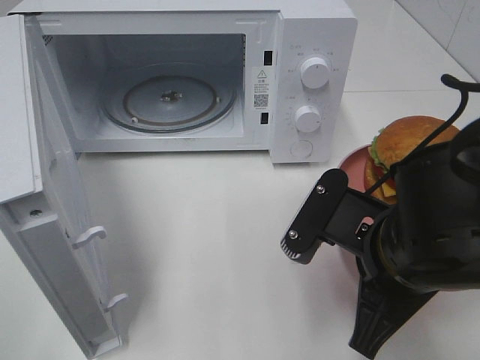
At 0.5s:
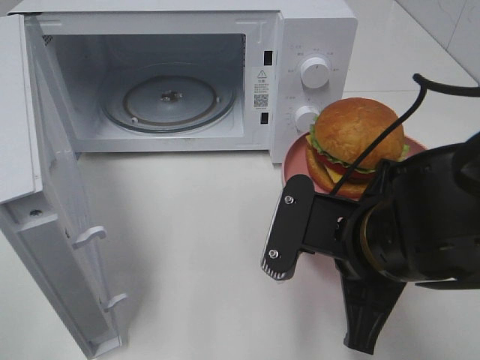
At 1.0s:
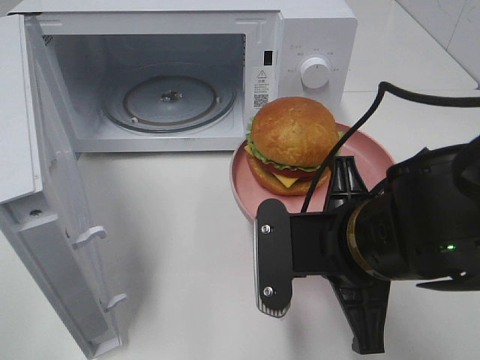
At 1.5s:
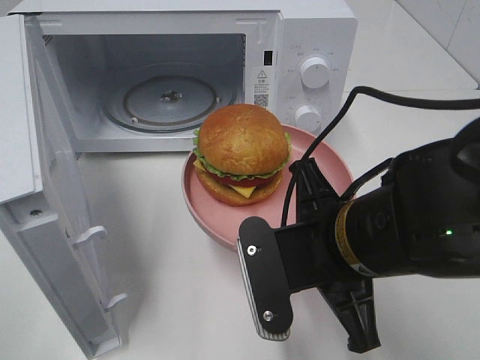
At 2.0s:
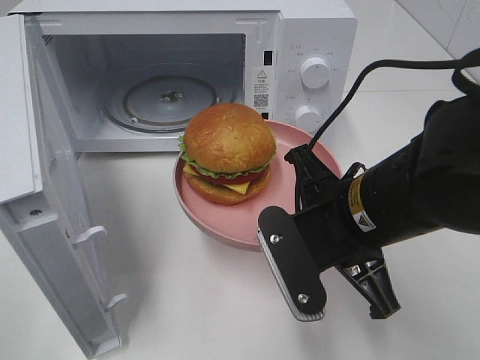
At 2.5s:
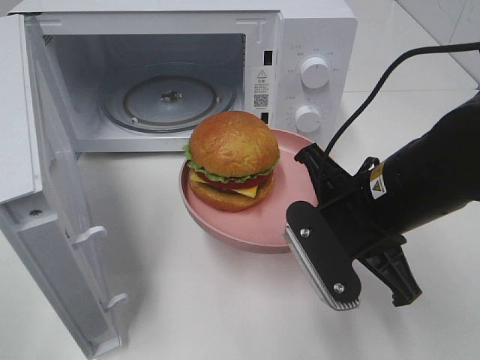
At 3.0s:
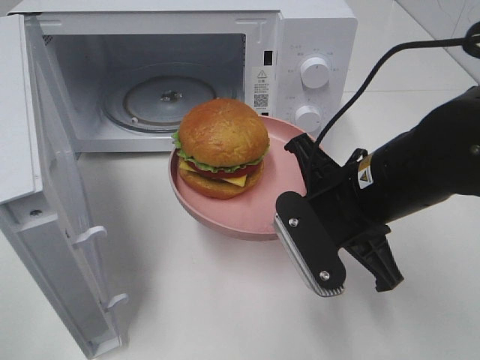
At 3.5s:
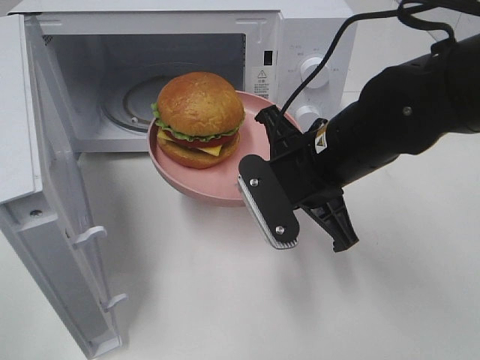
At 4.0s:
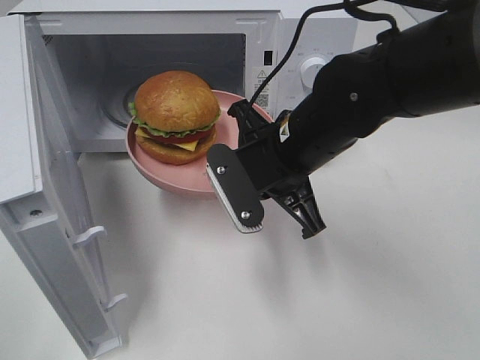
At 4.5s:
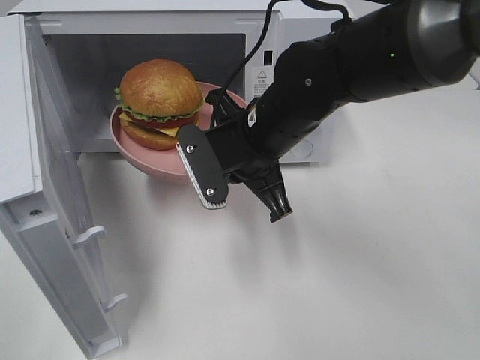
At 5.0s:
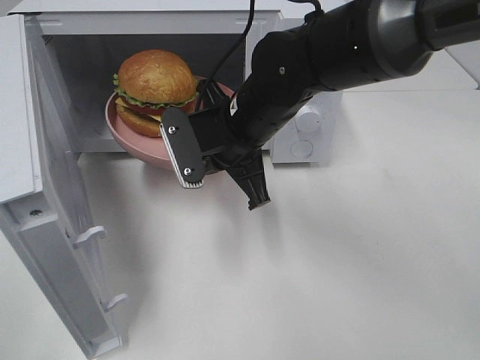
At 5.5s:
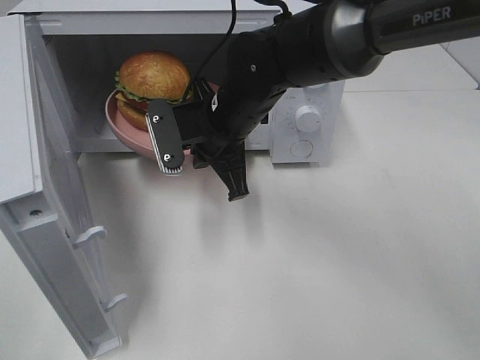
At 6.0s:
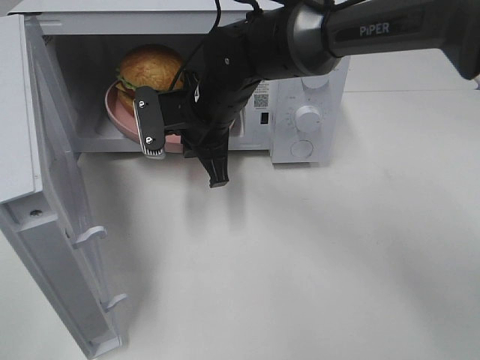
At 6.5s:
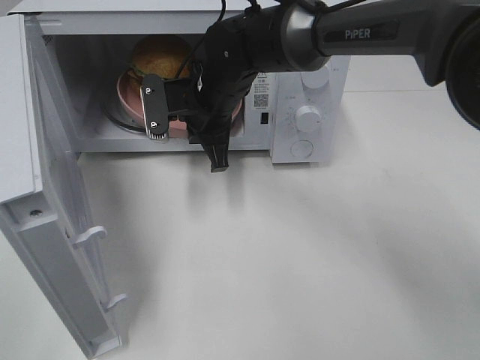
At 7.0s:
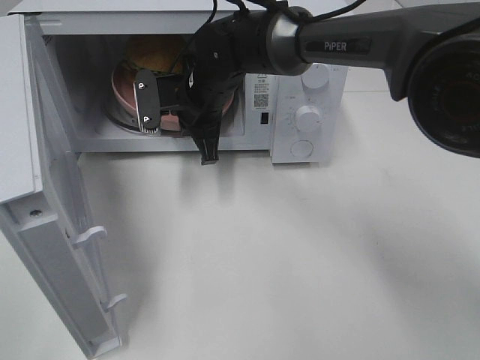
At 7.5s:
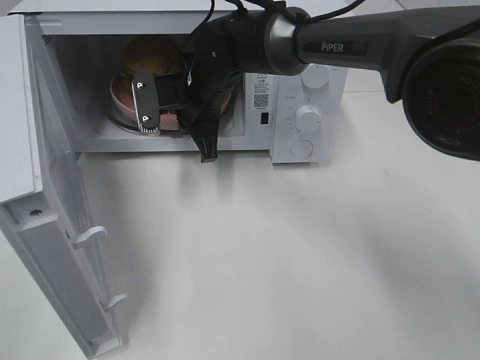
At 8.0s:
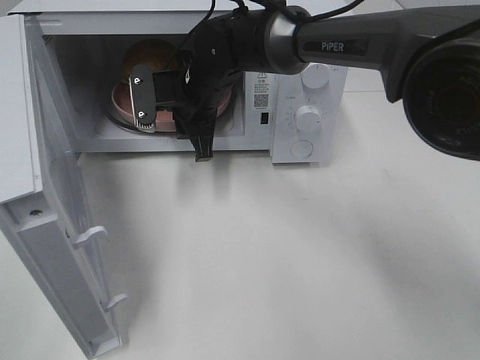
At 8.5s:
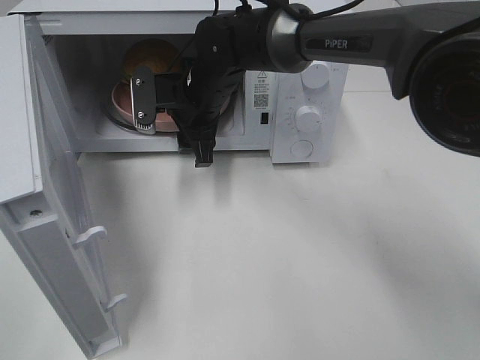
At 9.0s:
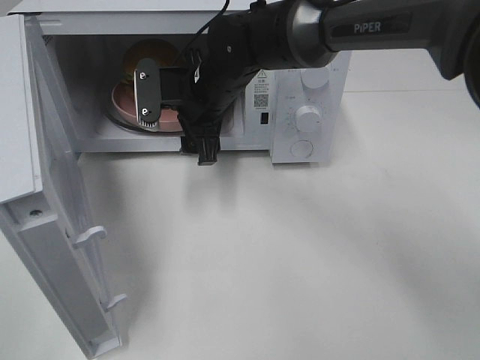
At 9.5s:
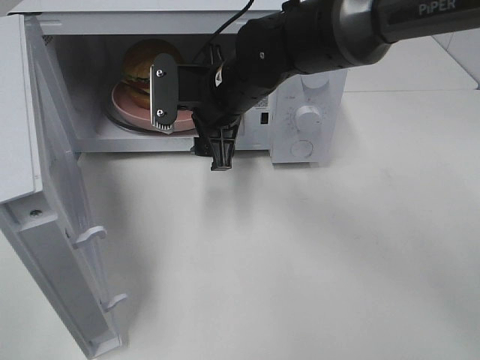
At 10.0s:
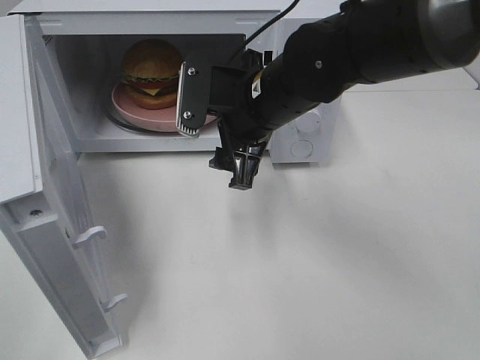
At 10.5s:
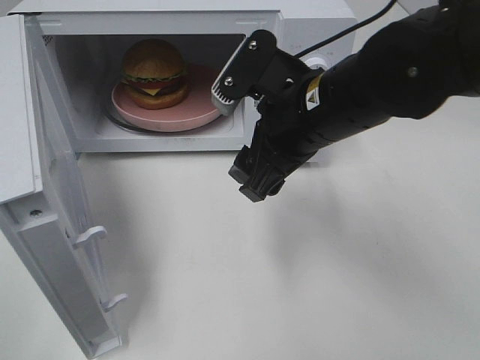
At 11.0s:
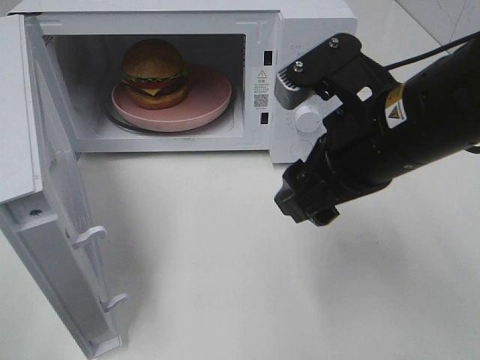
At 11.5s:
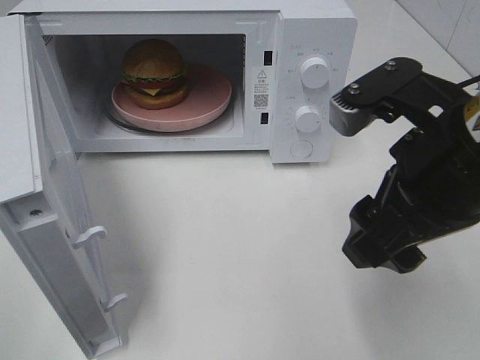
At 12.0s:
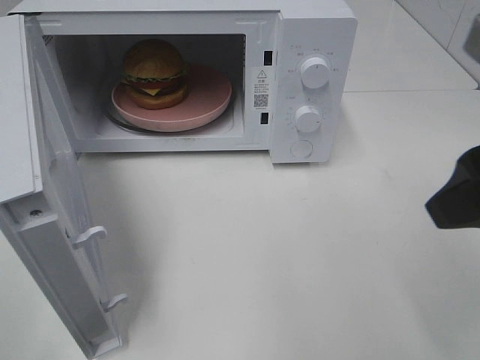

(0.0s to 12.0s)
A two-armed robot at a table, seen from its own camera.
Task of the whole recording: Heat the burger.
Step, 0.0s - 8.5s: Right hand: place the plate in the microwave.
2.0s - 4.0s: The right gripper travels forward by roughly 10 cm.
4.0s - 6.0s: The right gripper goes some 15 cm forward and to the left.
6.0s - 8.0s: The right gripper opens.
8.0s - 10.0s: The right gripper travels backward and to the right by roughly 15 cm, and opens its fingers.
10.0s - 12.0s: The right gripper travels to the right, backward and upward by approximately 25 cm.

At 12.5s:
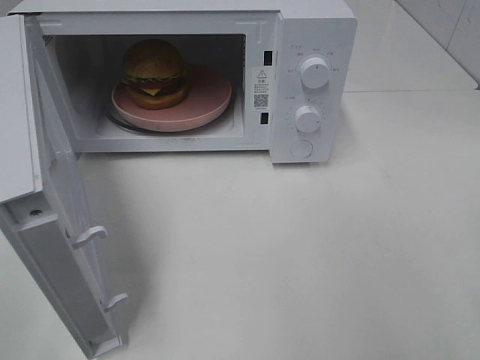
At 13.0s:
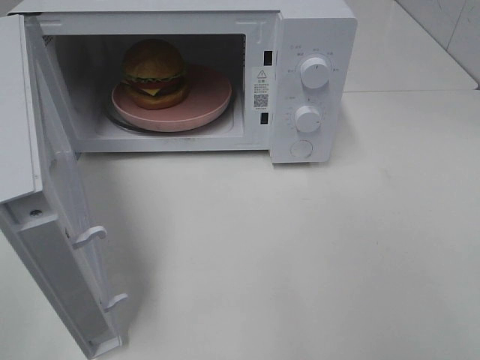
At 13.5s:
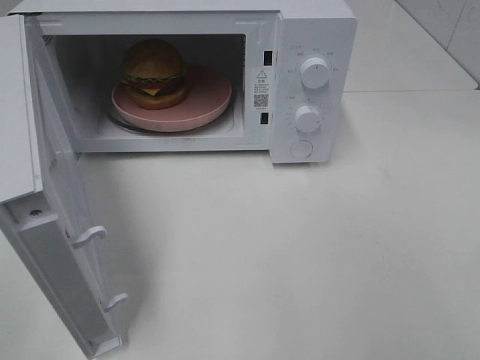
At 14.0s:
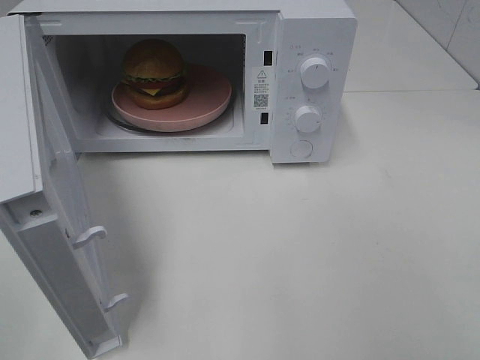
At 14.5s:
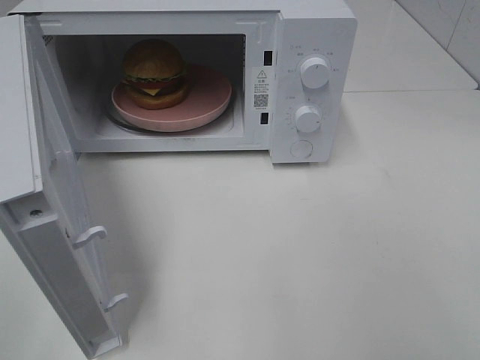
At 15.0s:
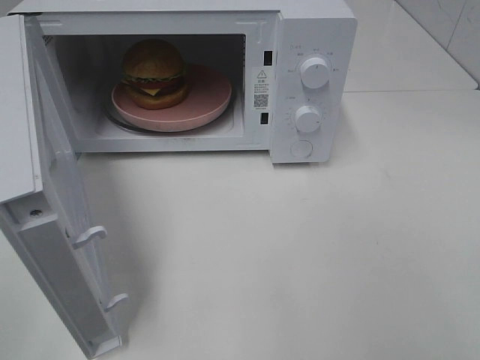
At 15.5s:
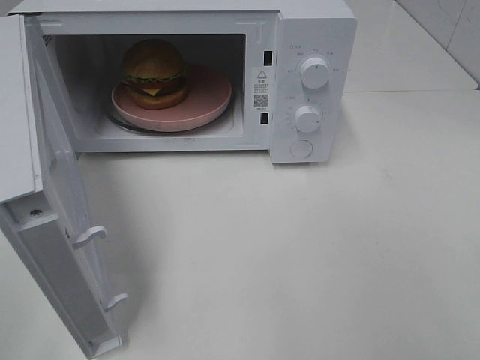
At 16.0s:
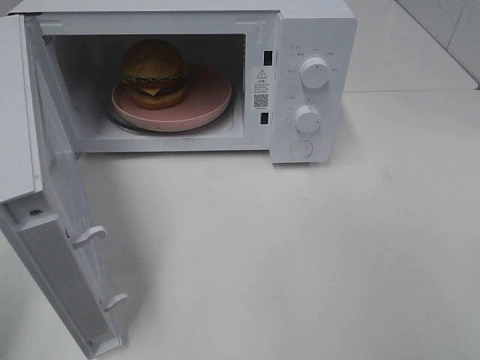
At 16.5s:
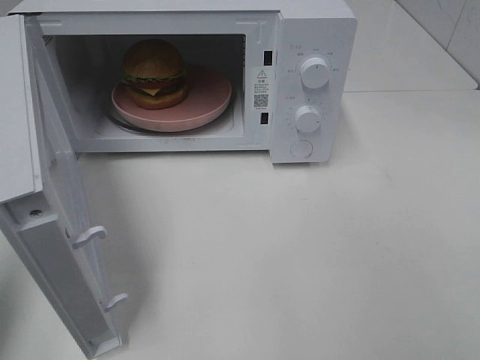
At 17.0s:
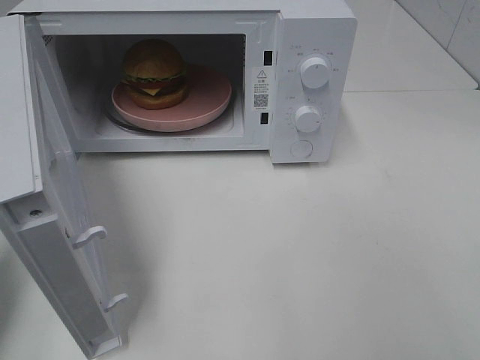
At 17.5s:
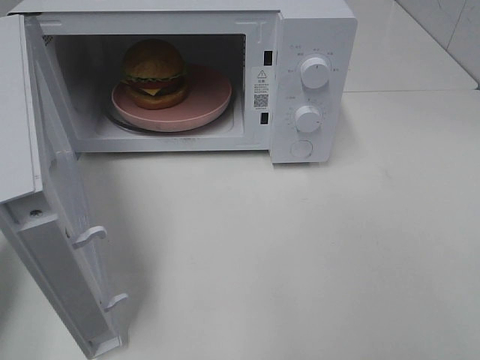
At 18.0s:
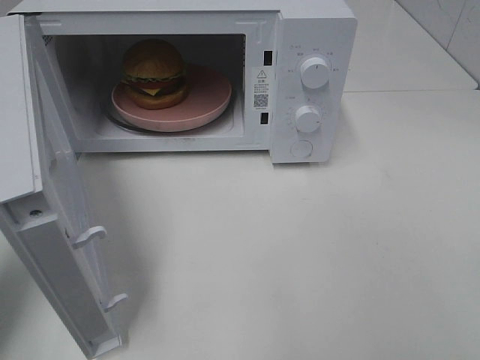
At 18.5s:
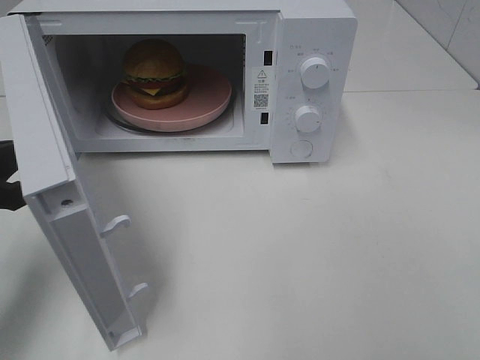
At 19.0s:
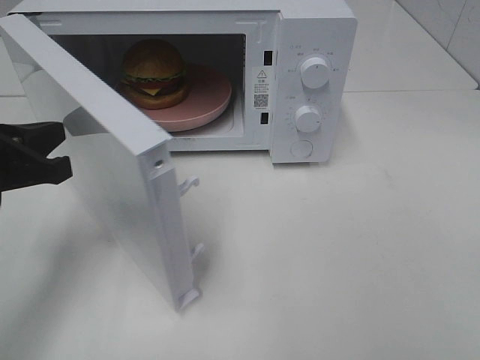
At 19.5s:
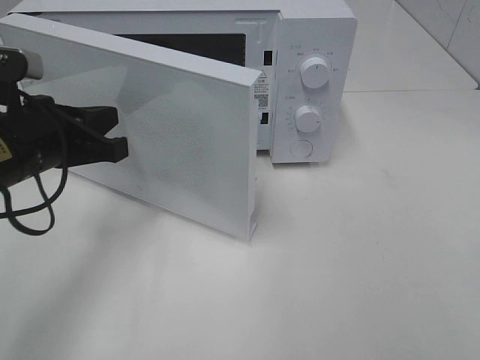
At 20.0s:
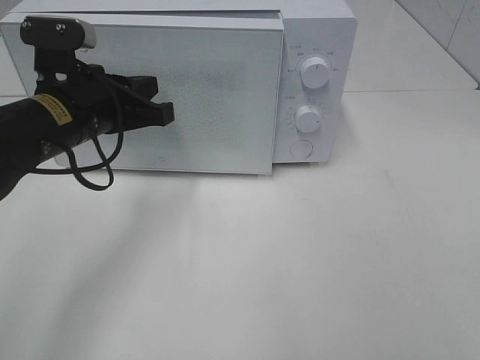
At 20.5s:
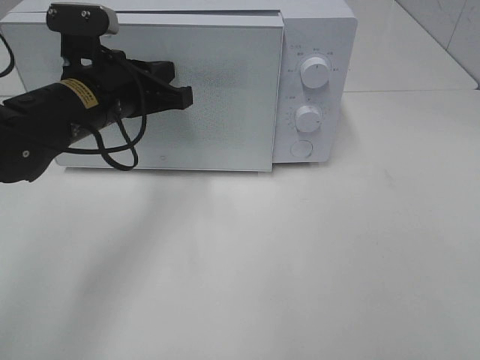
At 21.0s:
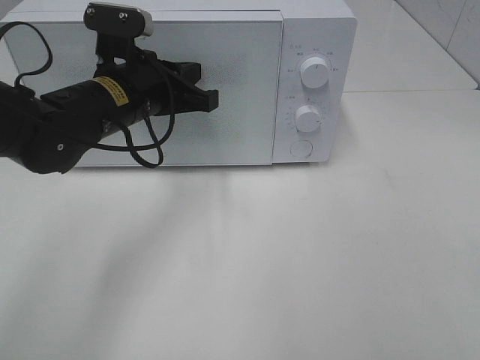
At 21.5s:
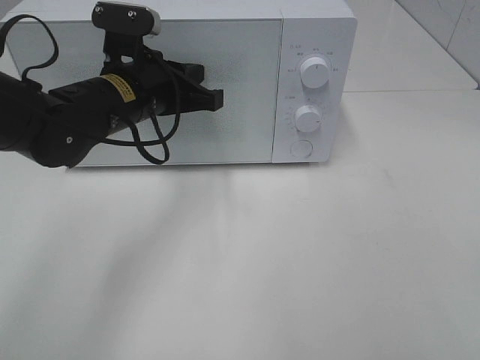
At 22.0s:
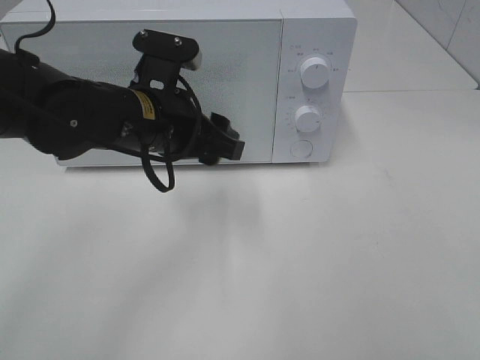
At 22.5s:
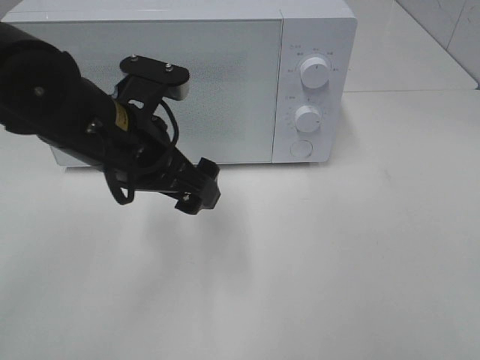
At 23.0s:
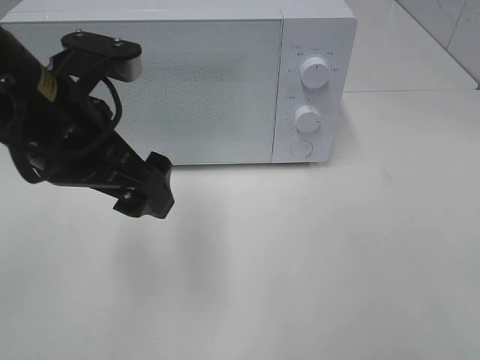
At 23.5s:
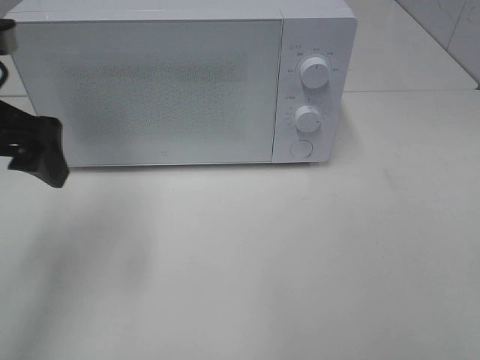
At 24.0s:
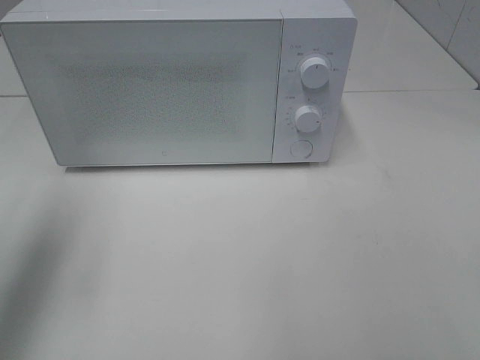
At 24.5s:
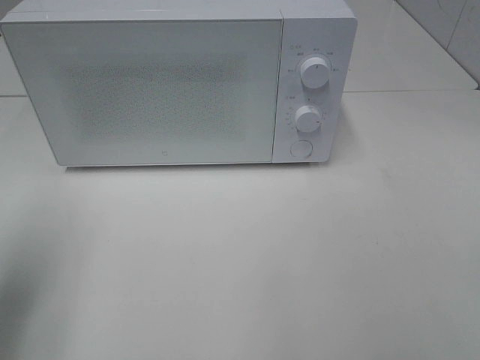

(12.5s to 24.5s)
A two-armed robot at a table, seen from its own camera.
Task of the whole recording: Heat the burger.
Step, 12.5s - 21.5s: Left hand: close the microwave door.
14.5s - 16.5s: The left gripper goes about 15 cm forward, and closes up.
16.5s - 18.5s: The left gripper is displaced downward, forward and to the right by roughly 15 cm.
18.5s - 20.5s: The left gripper travels to the right and forward by some 20 cm.
20.5s - 22.5s: The left gripper moves backward, some 5 cm, and opens up.
22.5s - 24.5s: The left gripper shifts some 20 cm to the left and backward.

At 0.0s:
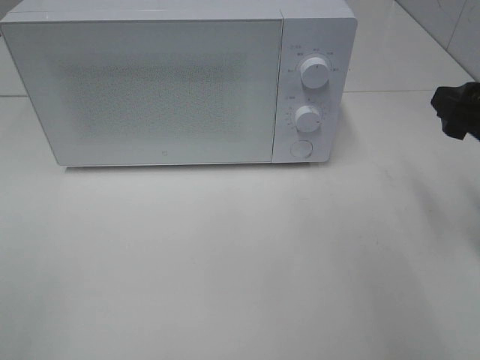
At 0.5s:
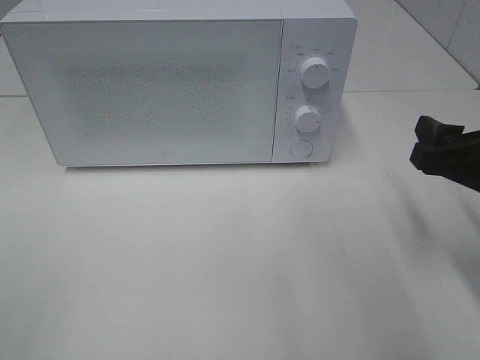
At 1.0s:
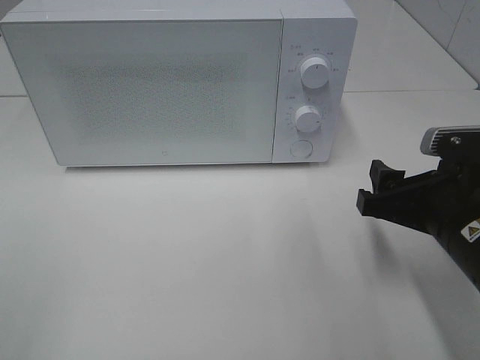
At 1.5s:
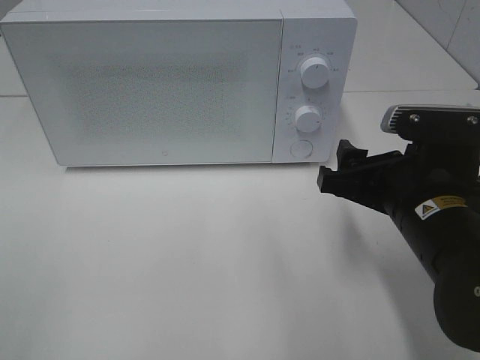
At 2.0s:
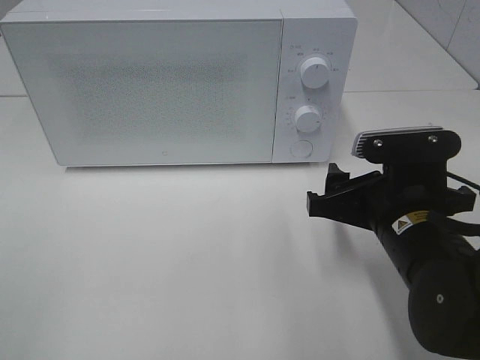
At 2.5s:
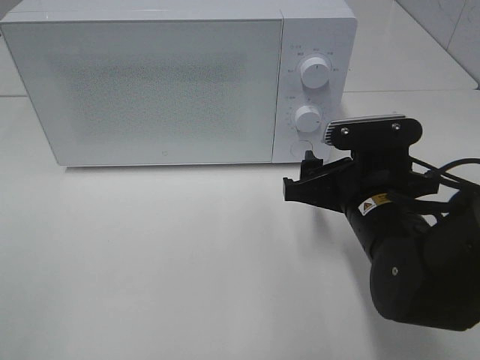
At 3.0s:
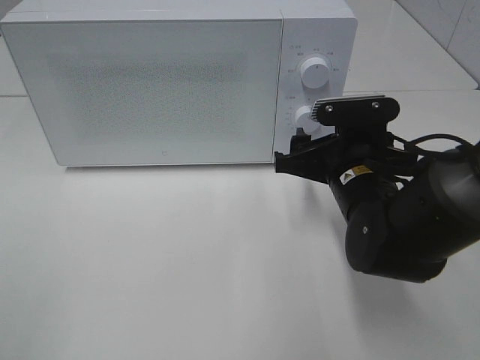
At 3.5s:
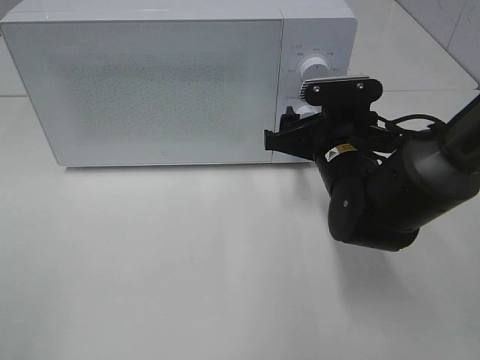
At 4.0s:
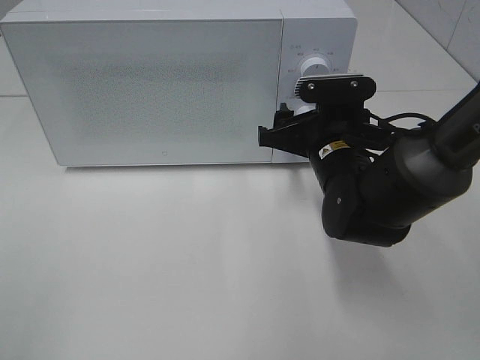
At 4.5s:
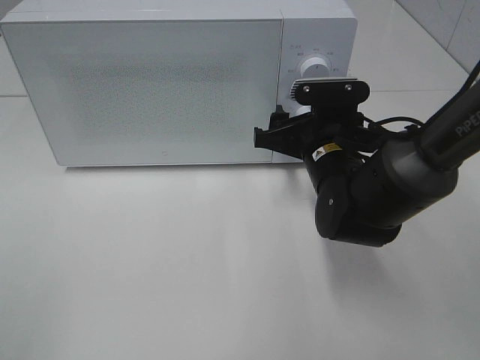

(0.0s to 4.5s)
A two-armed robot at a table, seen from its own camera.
Task of the whole recording: Heat the burger.
0.0s - 2.0s: The right gripper heads to the left and downward, covering approximately 15 cm.
2.0s - 4.5s: The right gripper goes roughly 10 cm forward.
